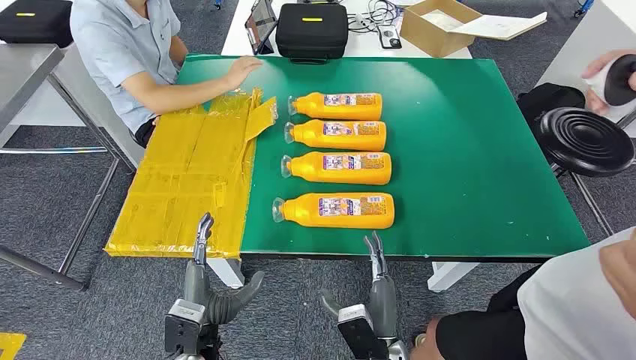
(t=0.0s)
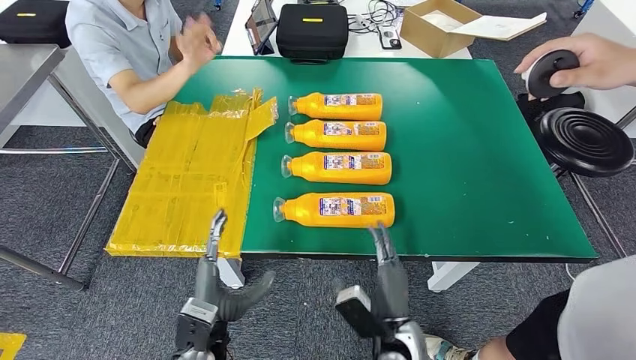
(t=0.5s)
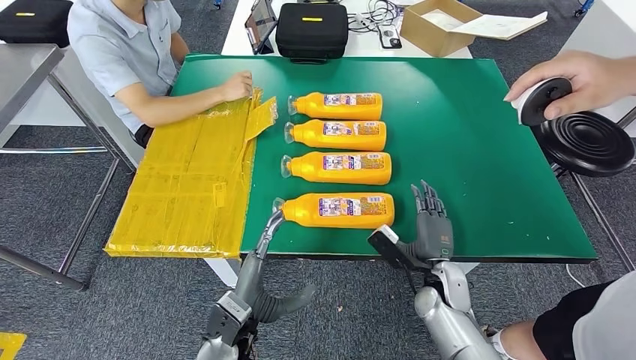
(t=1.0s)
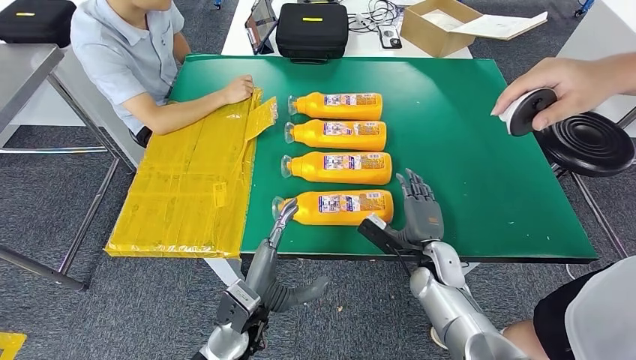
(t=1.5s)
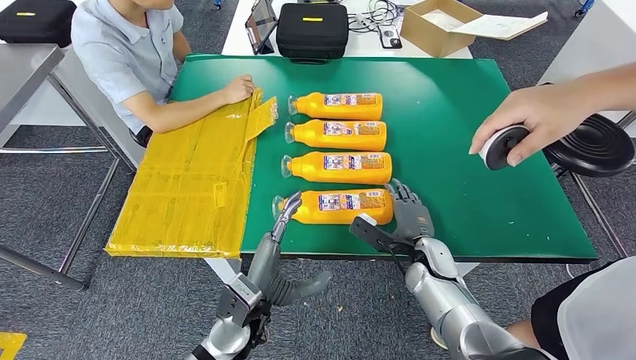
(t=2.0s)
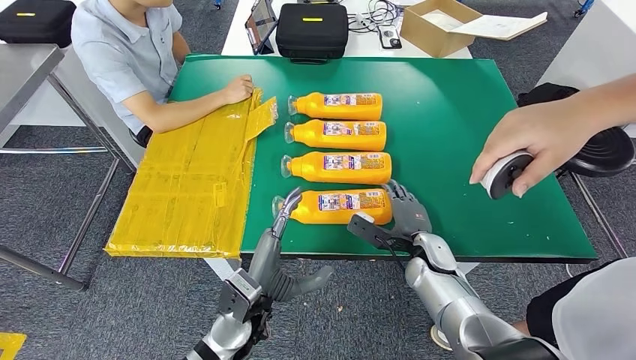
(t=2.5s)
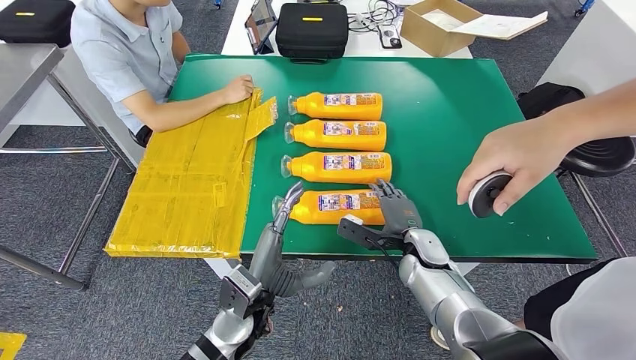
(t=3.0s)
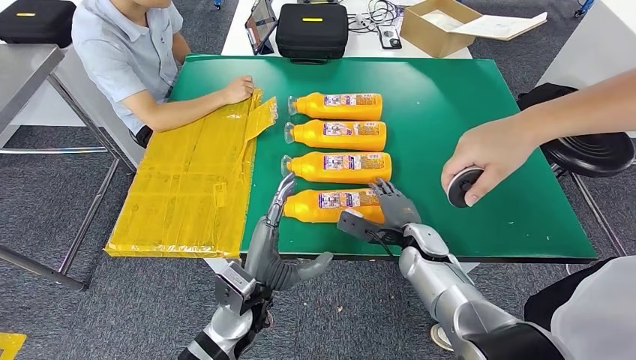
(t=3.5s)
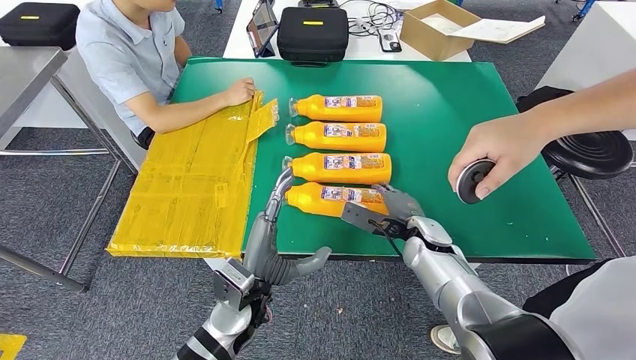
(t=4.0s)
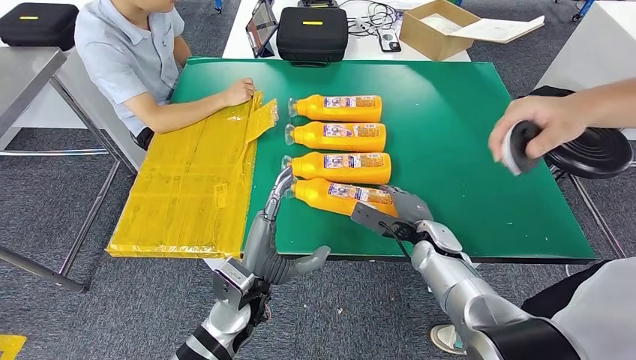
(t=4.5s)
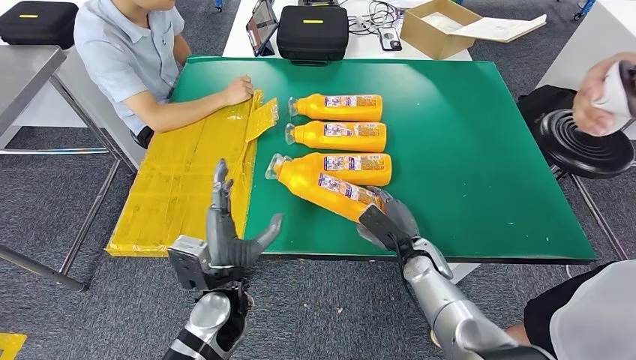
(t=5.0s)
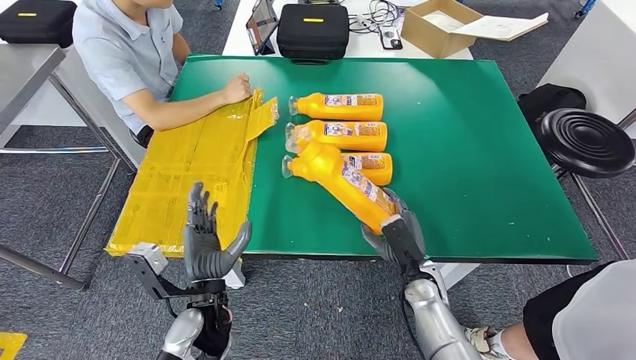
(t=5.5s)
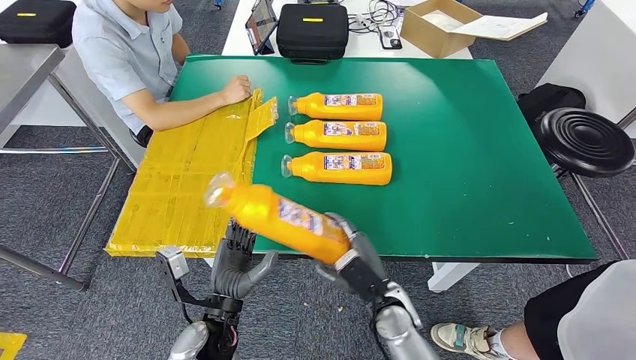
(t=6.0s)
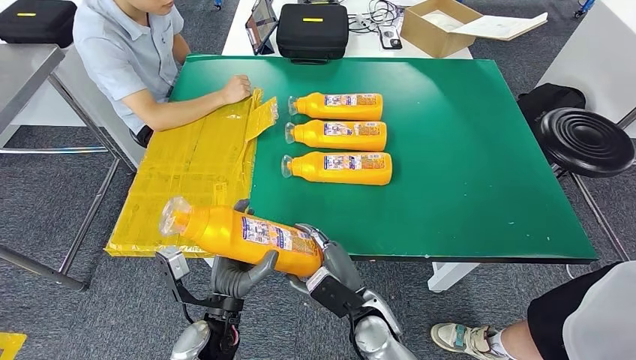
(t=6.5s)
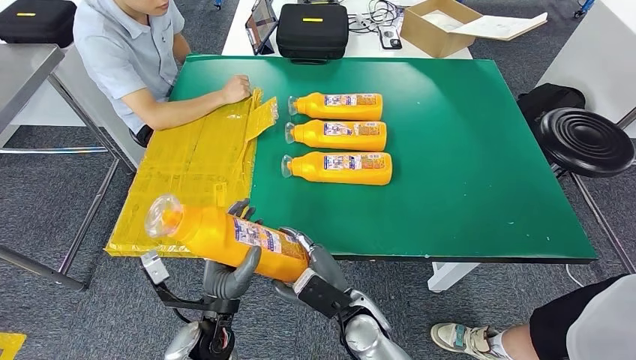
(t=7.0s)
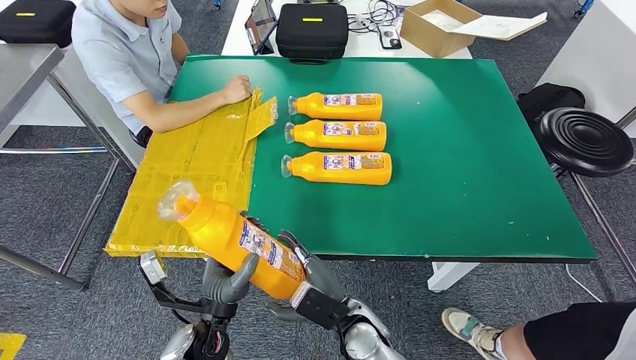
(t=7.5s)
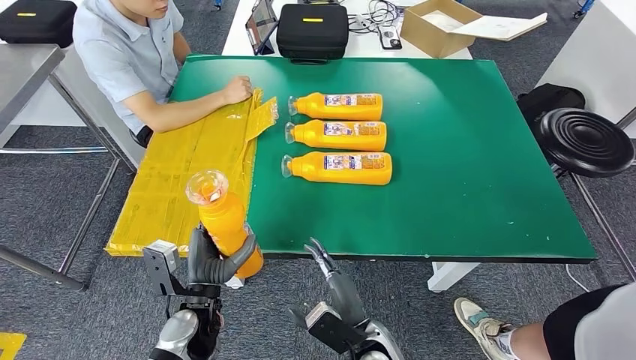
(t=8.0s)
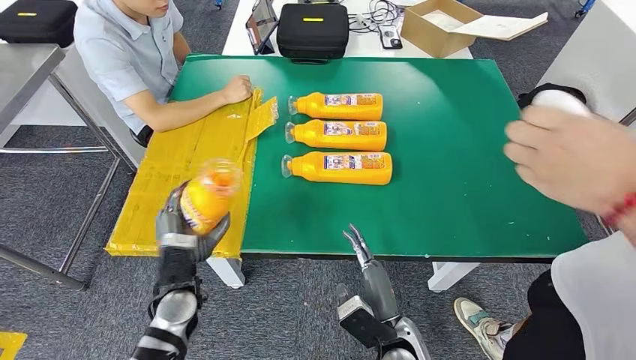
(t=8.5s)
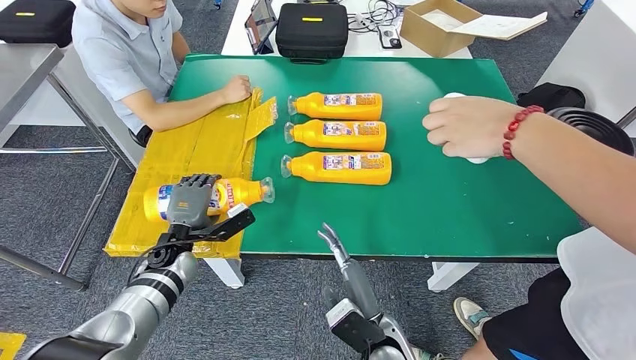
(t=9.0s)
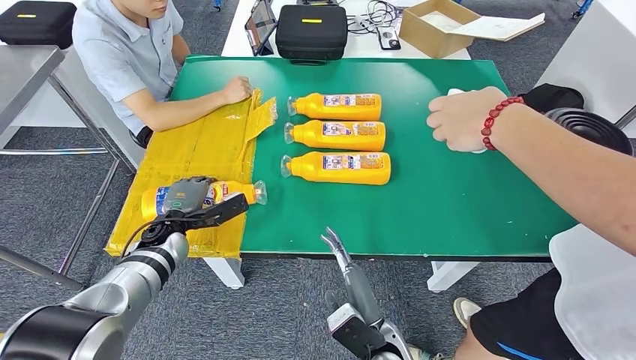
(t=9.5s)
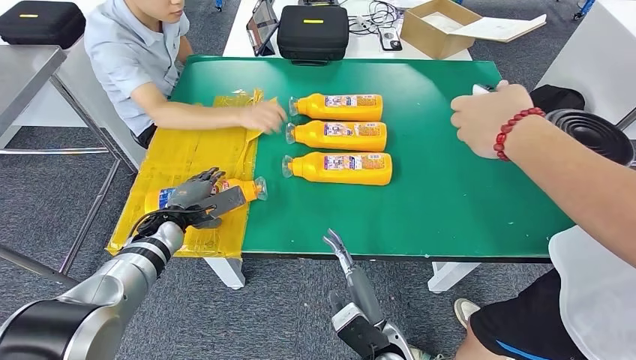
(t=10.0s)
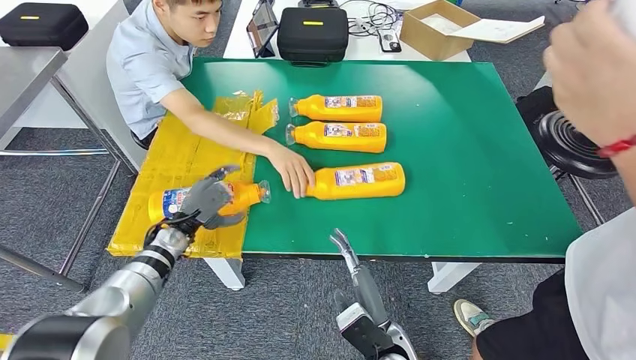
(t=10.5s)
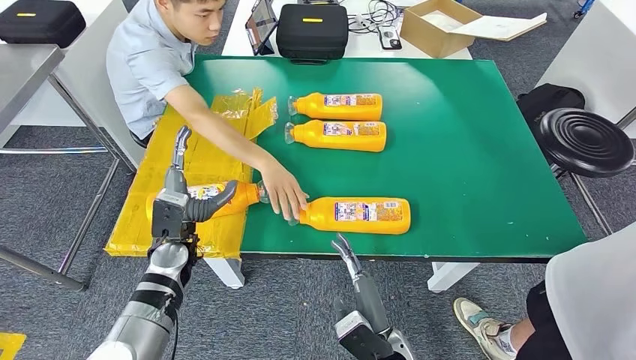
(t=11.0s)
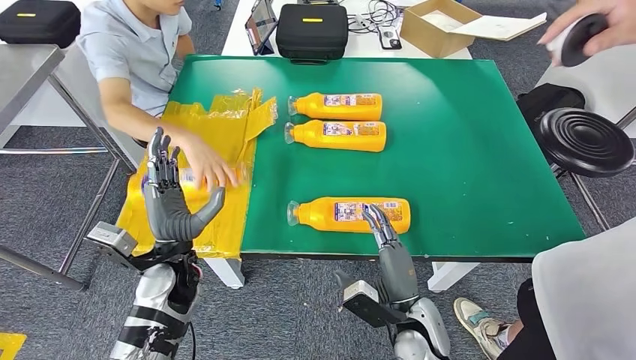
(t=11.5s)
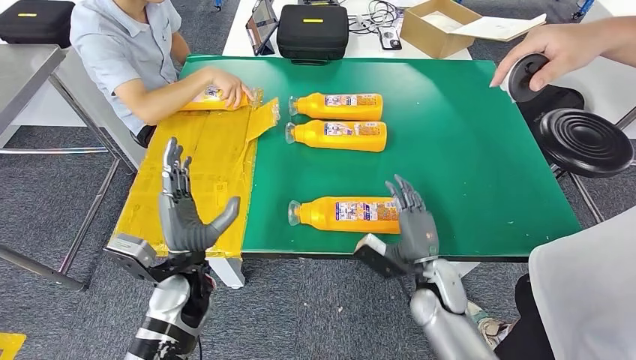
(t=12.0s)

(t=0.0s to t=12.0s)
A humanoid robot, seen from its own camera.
Step, t=0.0s - t=6.0s: Take the bottle from the table.
Step, t=6.5s - t=10.5s: Flip the bottle to face forward.
t=6.0s - t=8.0s: The right hand travels backward by some 5 cm.

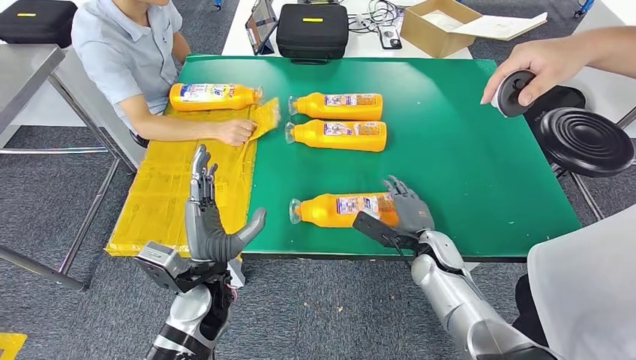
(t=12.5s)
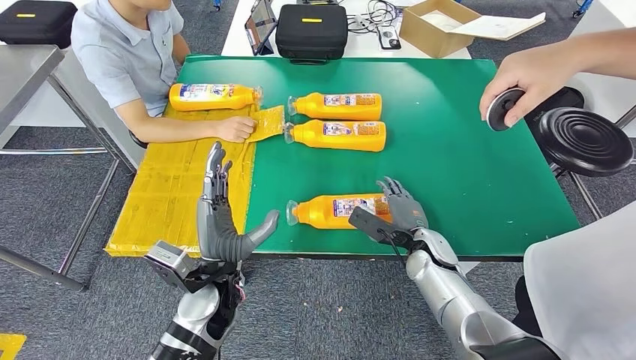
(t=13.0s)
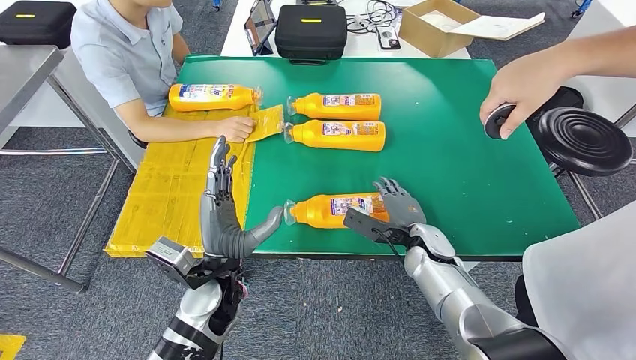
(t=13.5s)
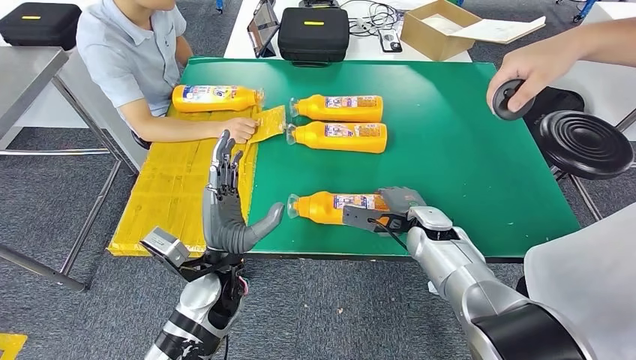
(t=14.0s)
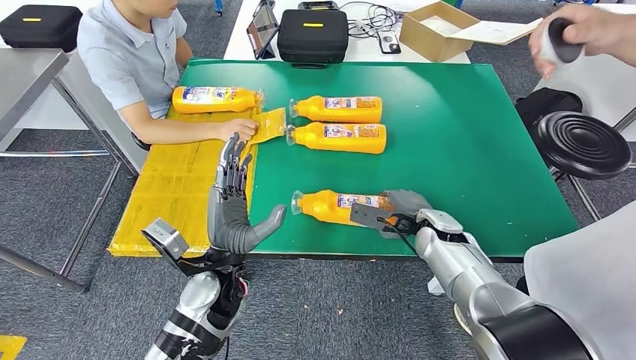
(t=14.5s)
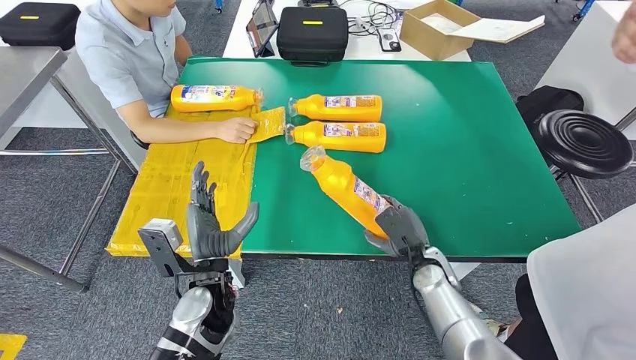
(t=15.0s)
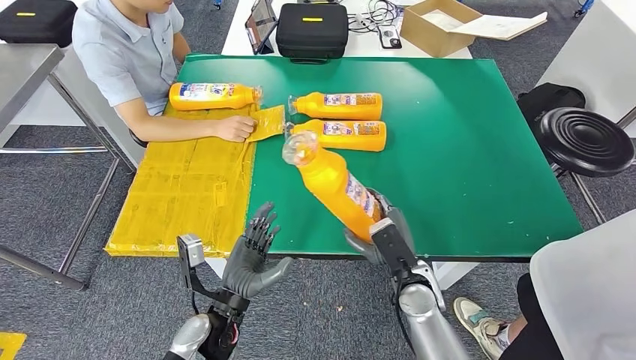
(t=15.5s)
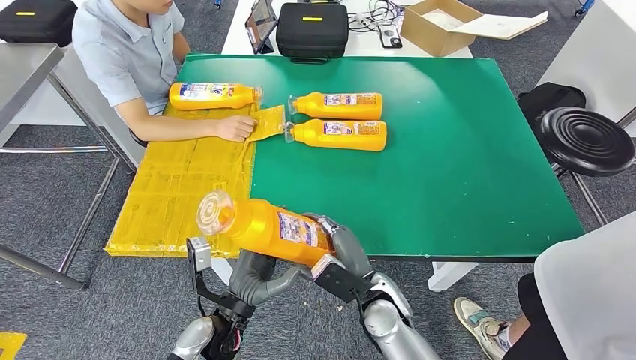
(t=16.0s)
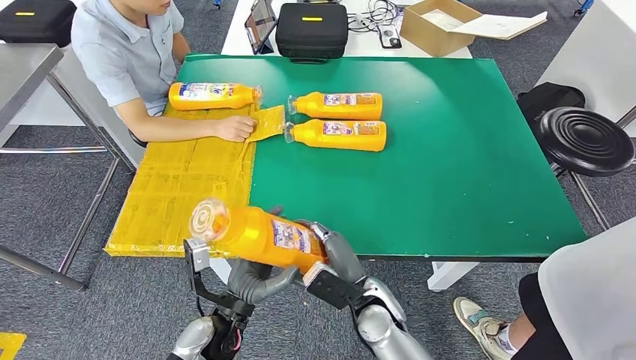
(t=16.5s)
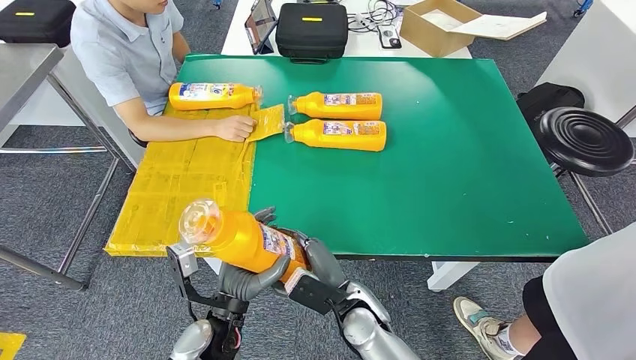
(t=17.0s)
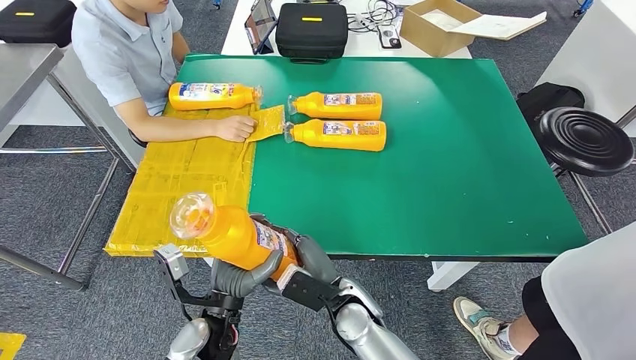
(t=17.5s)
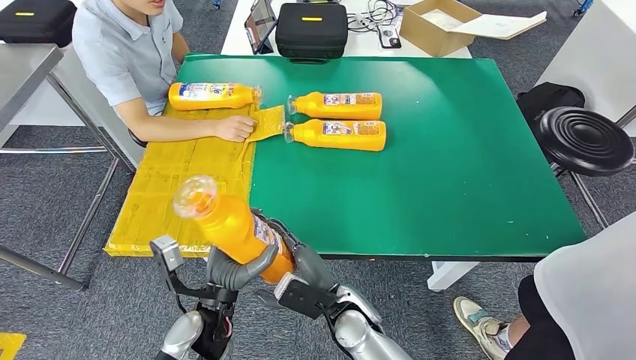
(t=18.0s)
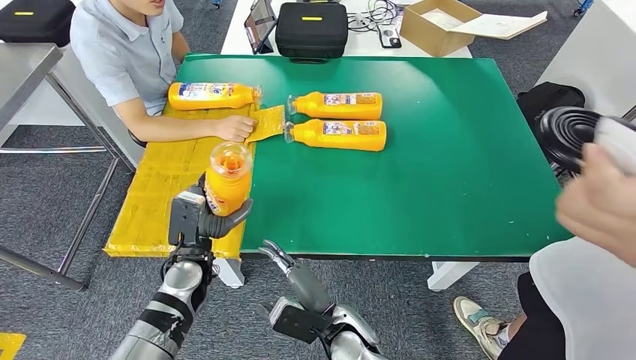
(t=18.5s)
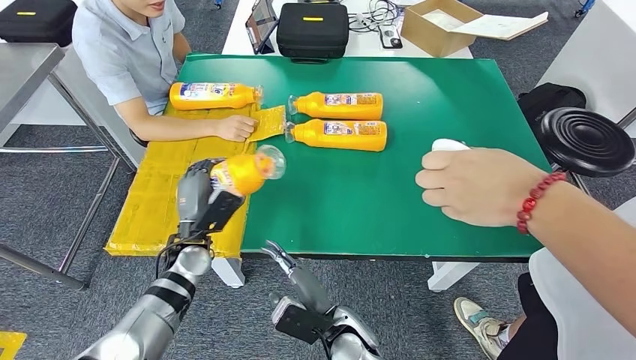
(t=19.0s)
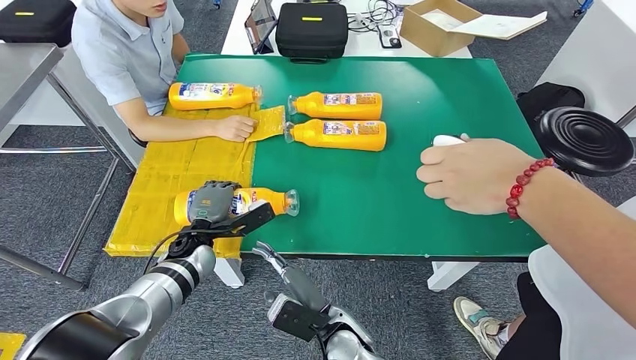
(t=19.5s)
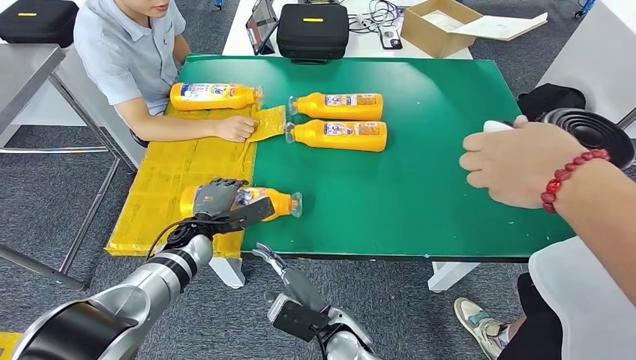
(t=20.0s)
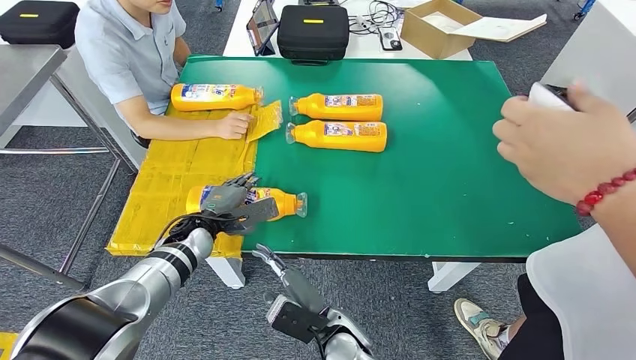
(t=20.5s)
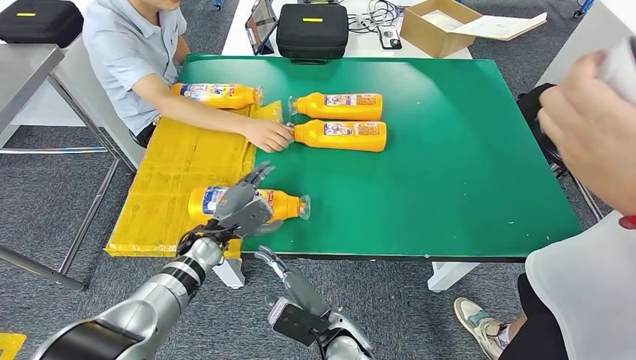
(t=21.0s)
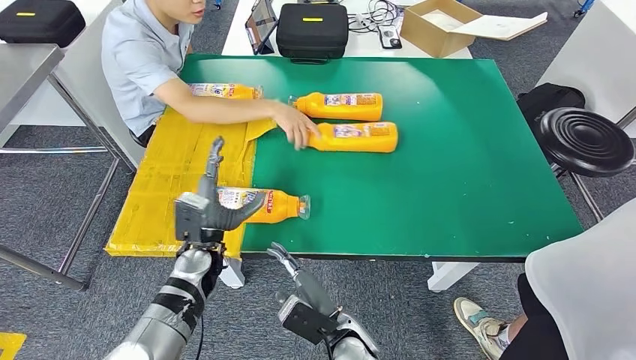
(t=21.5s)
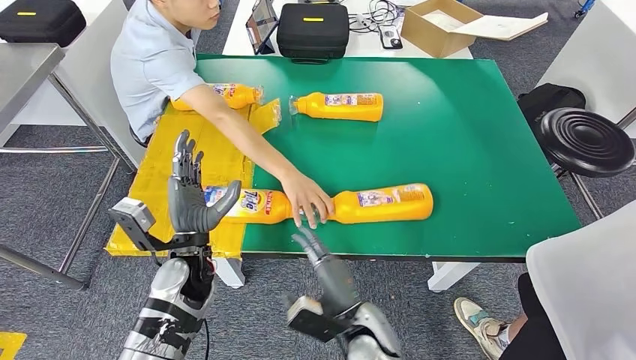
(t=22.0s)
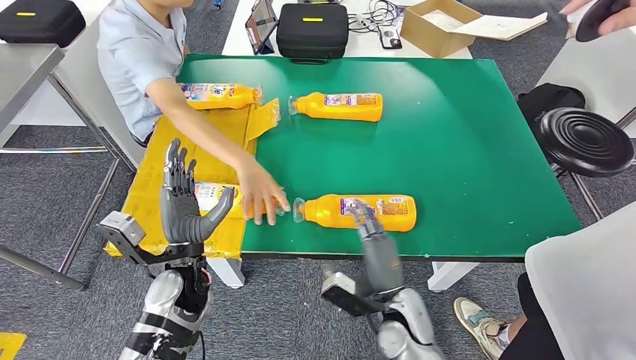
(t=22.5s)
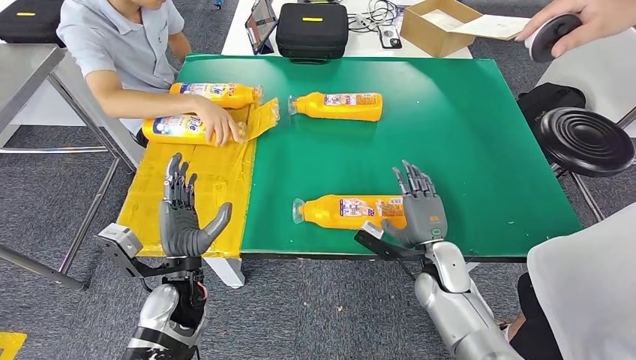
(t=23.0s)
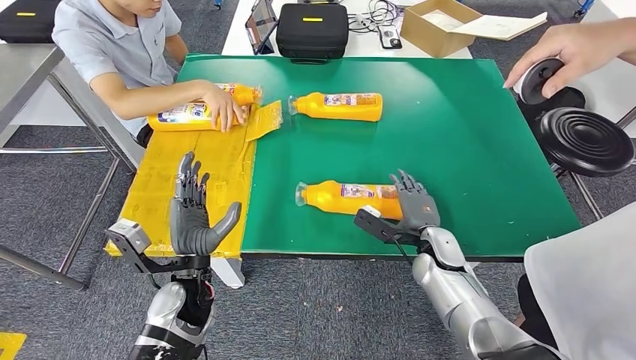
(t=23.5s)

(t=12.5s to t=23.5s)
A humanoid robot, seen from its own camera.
Step, t=12.5s - t=16.0s: Pick up the bottle from the table.
Step, t=16.5s - t=21.0s: Flip the bottle to face forward.
t=16.0s - t=18.0s: The right hand shifts some 5 cm to the left.
